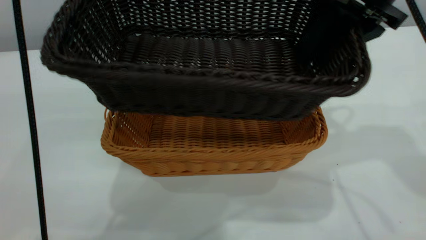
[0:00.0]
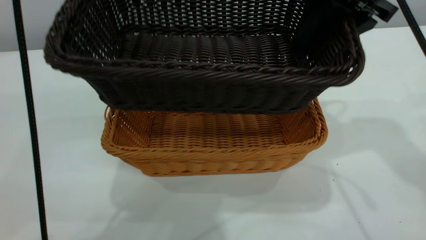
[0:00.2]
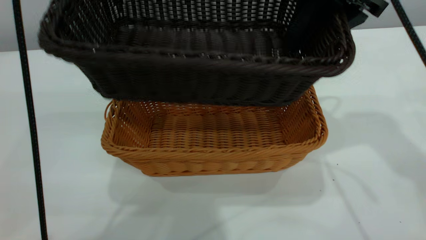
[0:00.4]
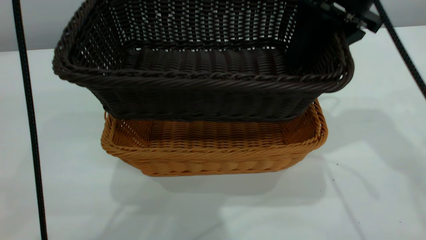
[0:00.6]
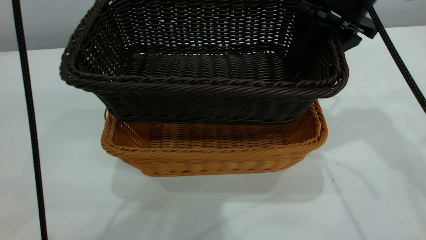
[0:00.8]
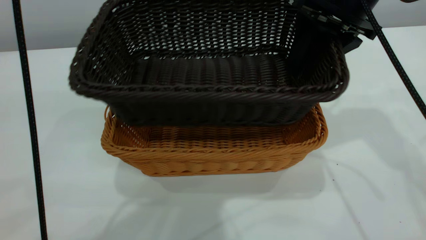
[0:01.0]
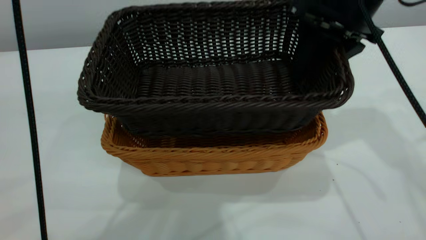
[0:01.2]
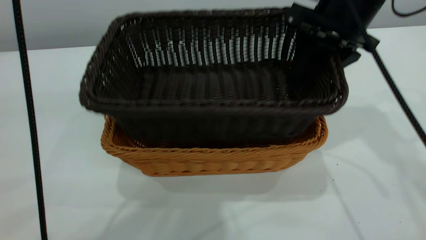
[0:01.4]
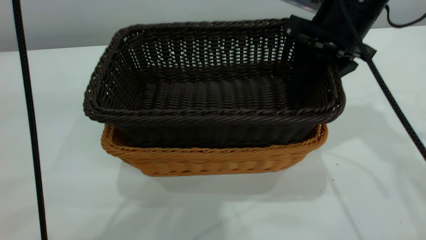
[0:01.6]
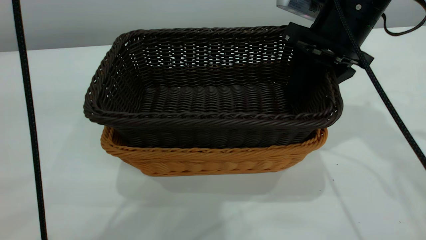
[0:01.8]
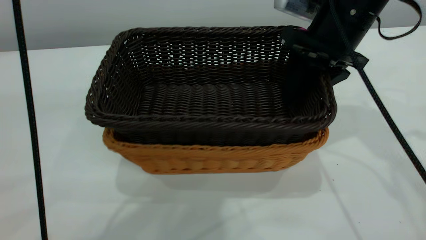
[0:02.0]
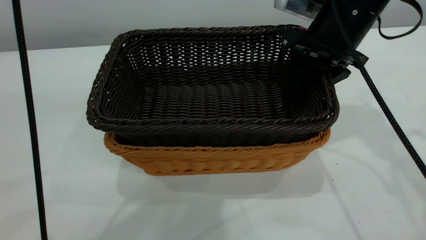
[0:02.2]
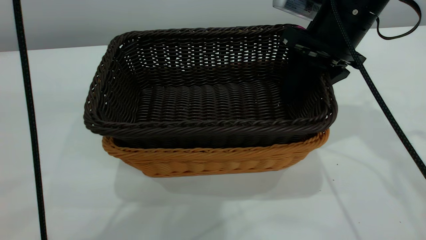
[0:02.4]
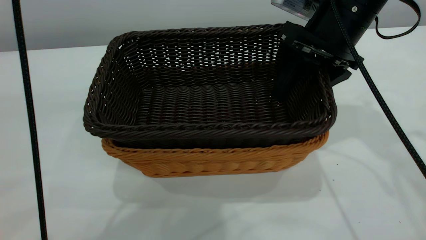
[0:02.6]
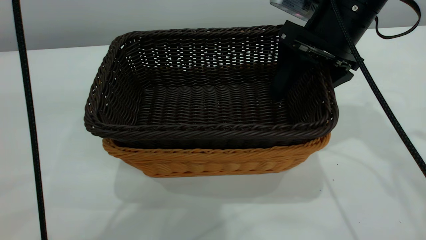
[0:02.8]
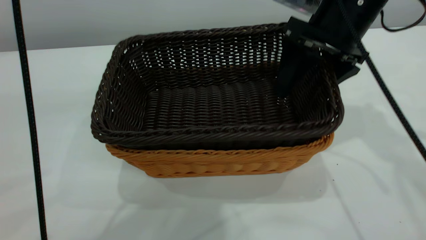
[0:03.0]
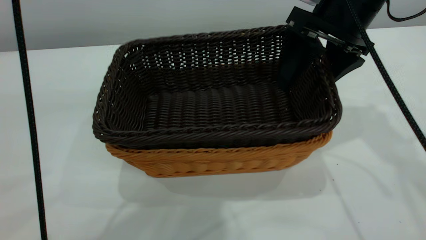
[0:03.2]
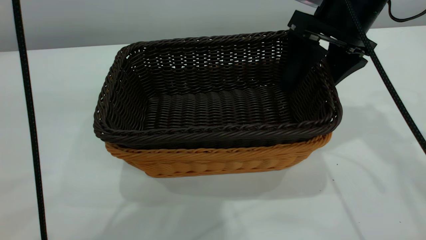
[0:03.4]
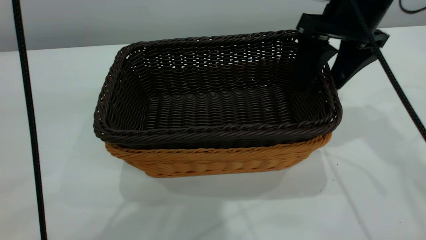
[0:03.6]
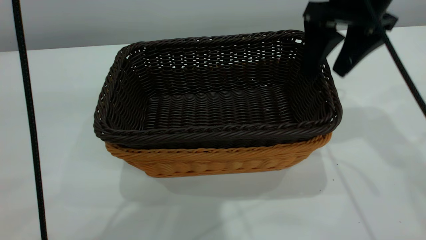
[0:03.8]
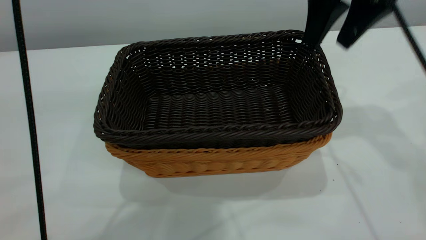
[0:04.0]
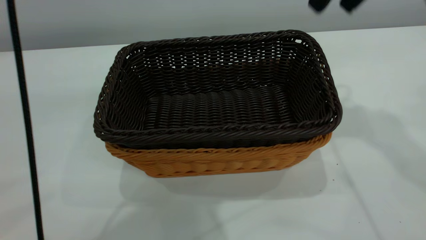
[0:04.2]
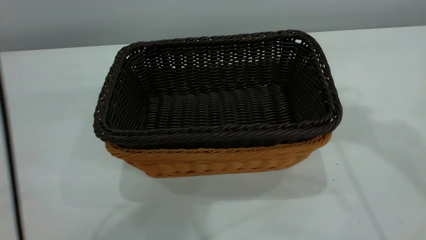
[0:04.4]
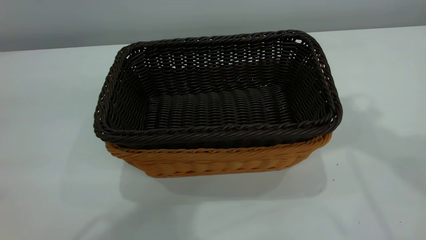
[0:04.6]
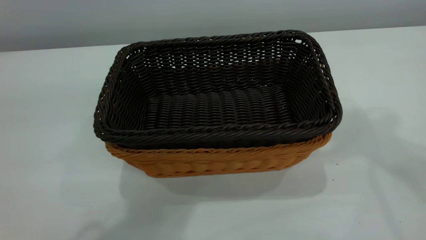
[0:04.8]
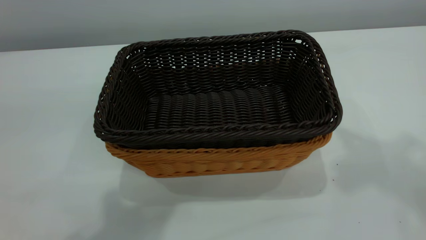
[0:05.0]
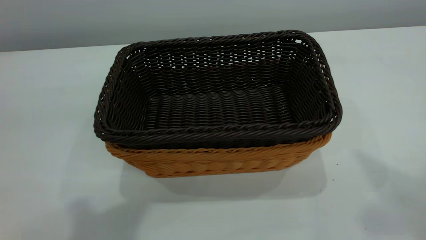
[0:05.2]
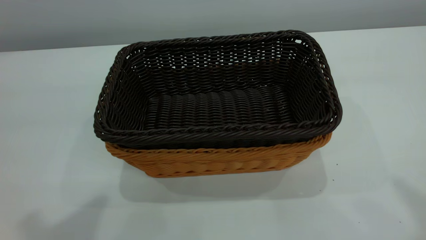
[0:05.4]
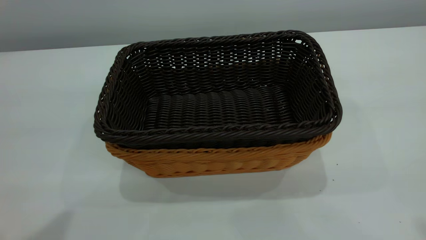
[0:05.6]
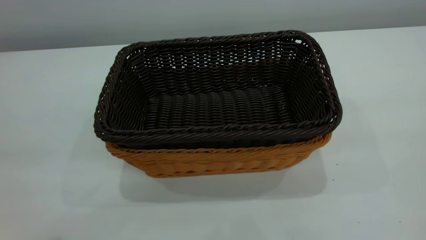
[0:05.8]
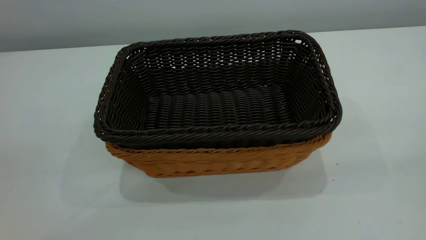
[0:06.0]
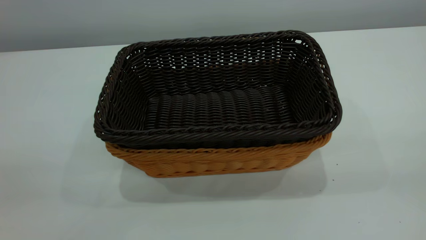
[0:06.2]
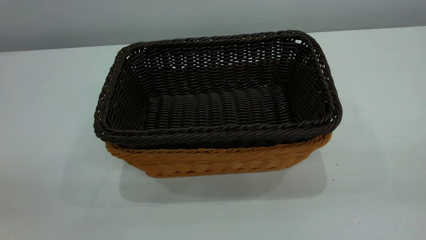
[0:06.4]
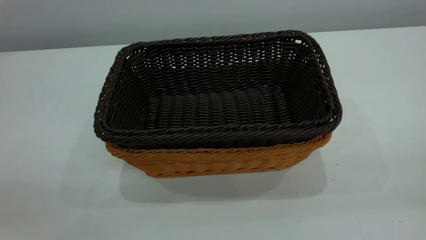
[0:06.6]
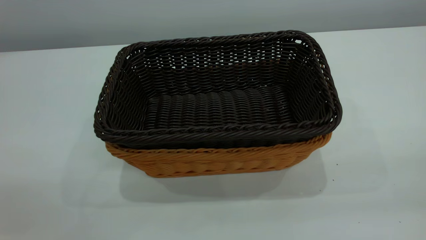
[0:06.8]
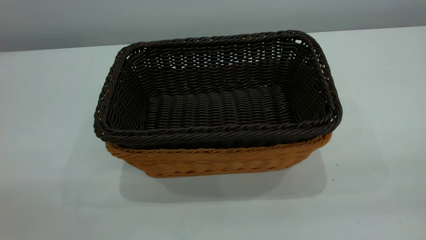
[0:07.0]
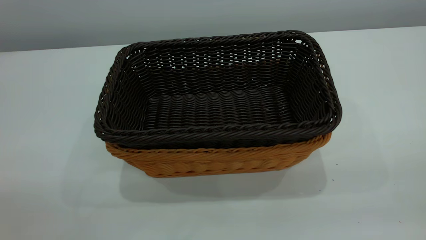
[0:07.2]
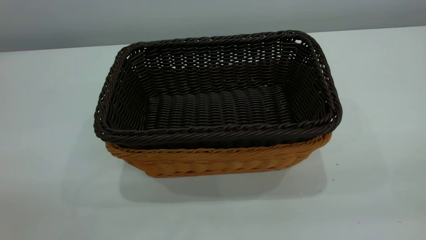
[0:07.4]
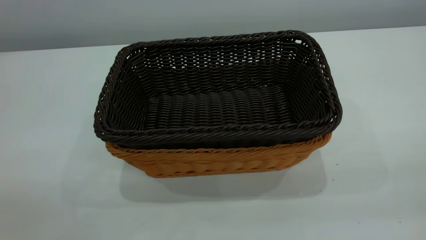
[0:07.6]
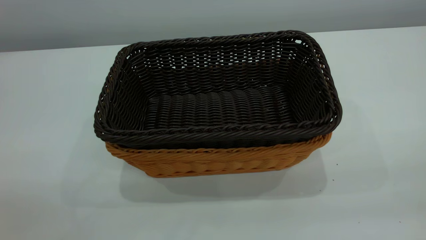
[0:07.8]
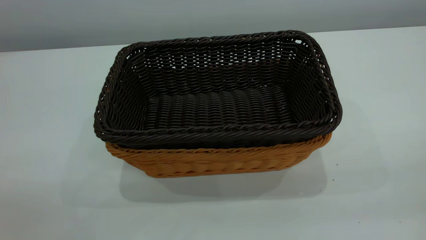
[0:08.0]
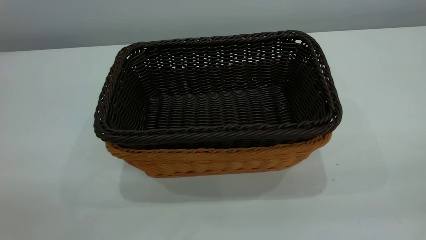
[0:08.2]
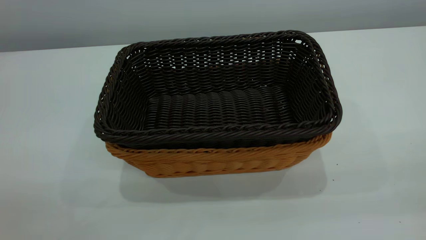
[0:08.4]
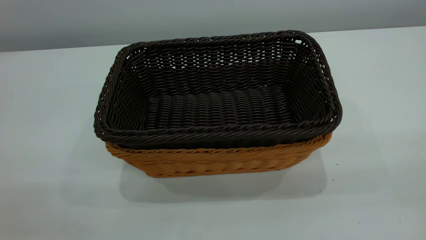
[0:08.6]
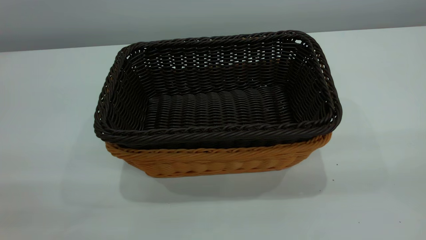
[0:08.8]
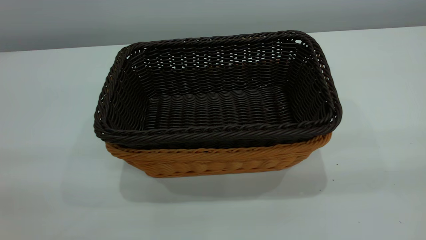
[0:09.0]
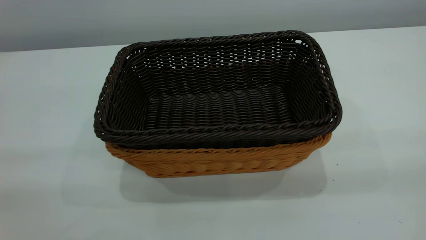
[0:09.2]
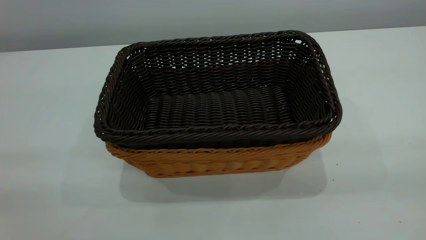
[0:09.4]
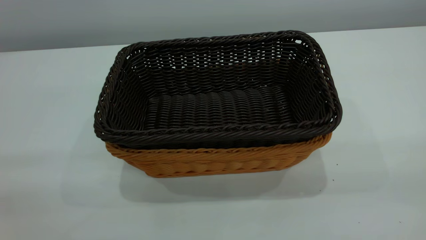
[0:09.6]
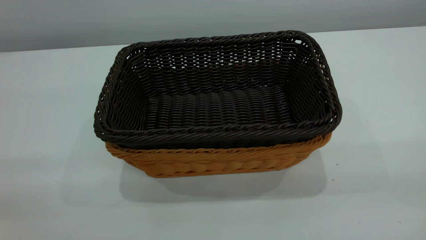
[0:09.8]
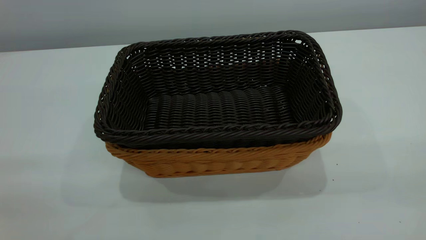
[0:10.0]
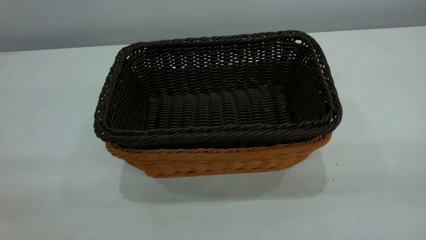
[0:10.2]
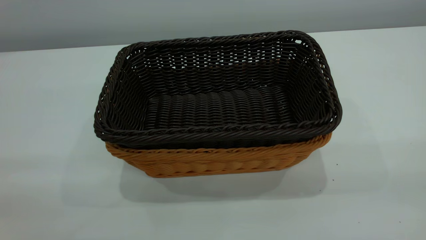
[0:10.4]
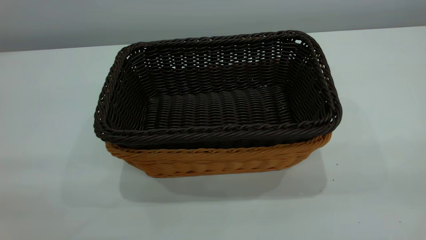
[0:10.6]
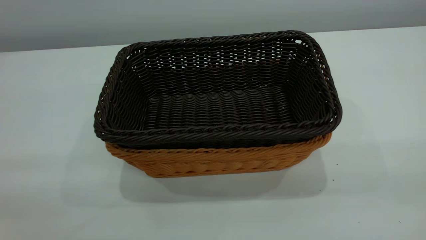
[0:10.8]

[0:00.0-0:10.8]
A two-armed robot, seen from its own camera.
Task of the whole recording: the left gripper grasp the brown basket and place it in the center of the table, the right gripper grasp the black basket and place it inside the brown one.
Step, 0:00.0 to 0:04.0: Place the dark basket on top of the light basket.
0:00.0 to 0:01.6: The right gripper heads downward, covering some 5 cm.
0:01.6 to 0:03.0: The right gripper opens up.
0:03.0 to 0:04.6: The left gripper shifts by about 5 cm, and closes its fingers, while the right gripper heads upward, covering about 25 cm, and closes.
0:04.6 to 0:06.2: The right gripper moves backward, roughly 30 cm, while the left gripper travels to the left, backward and downward by approximately 20 cm.
